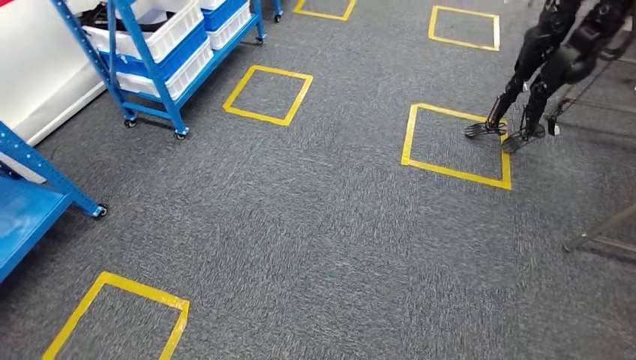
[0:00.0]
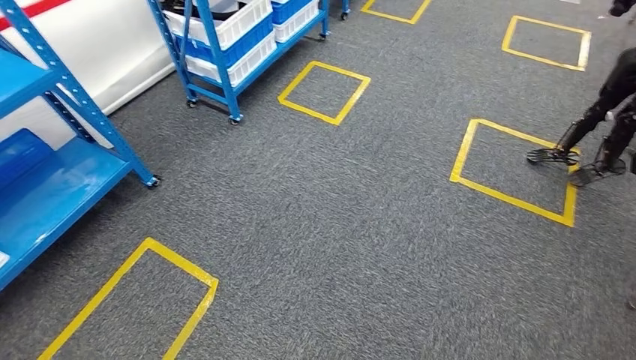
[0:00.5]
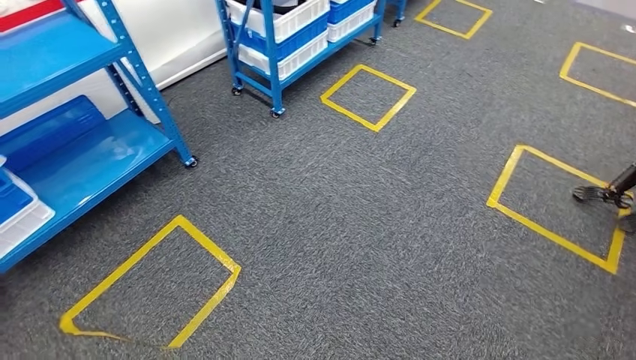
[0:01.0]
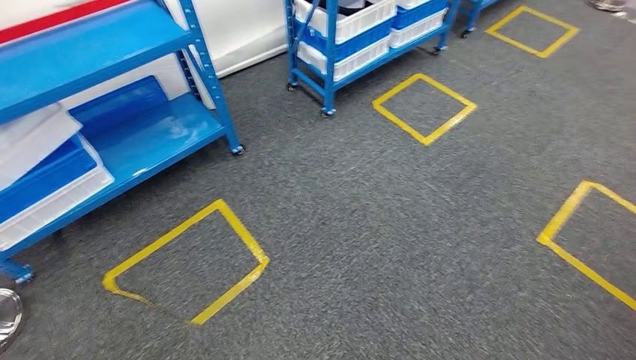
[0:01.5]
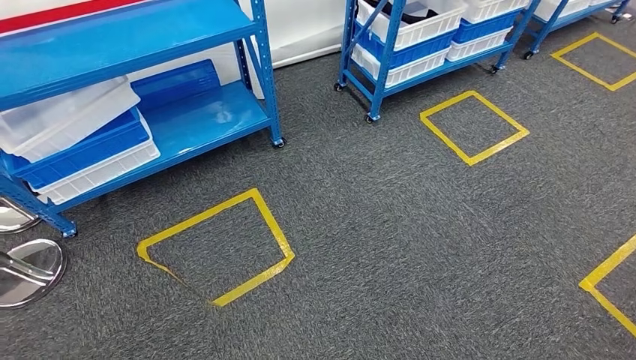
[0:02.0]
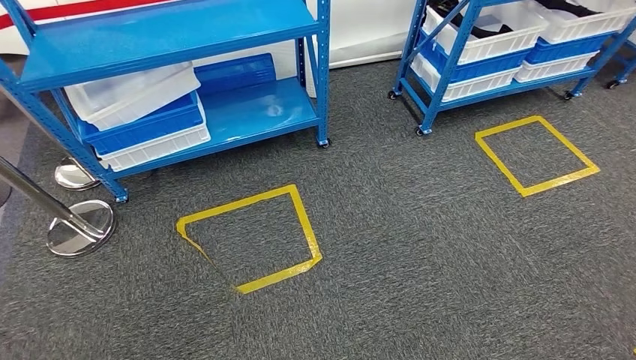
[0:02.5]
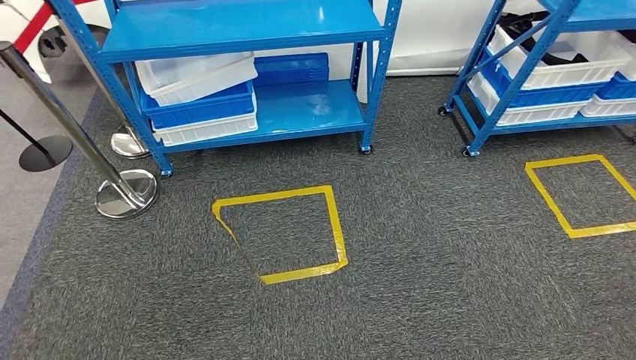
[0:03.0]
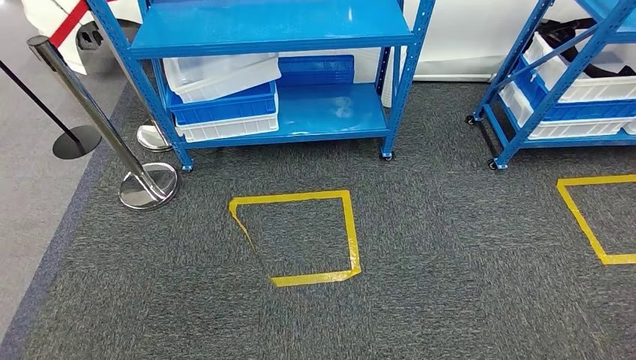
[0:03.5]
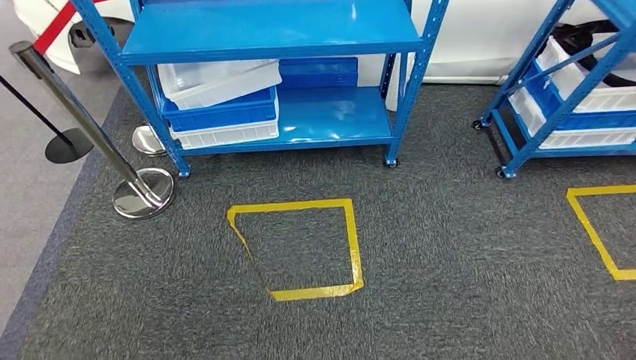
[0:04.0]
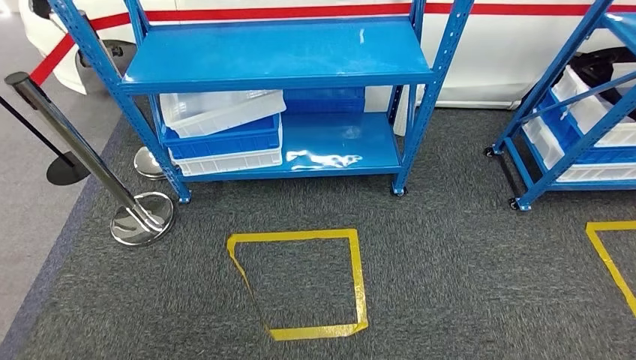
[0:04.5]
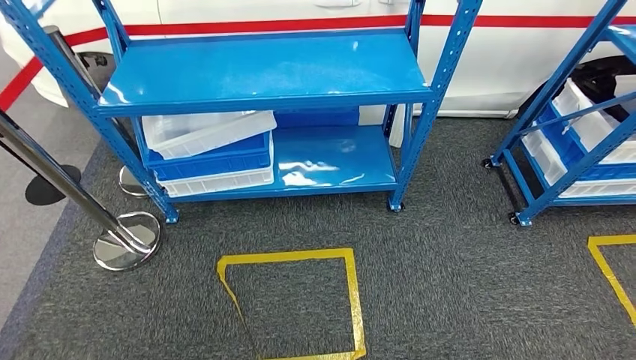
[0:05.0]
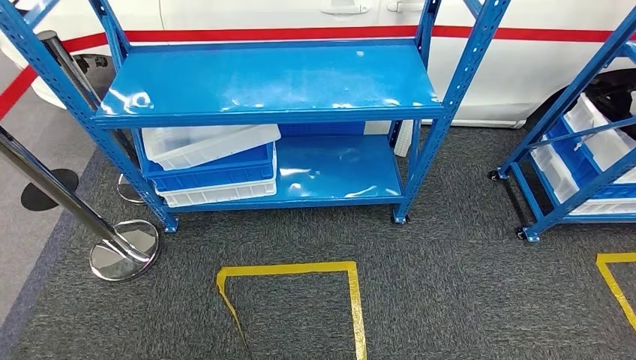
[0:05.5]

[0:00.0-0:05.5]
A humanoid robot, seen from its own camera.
Step, 0:00.0 to 0:05.5: Move to the initial position of the shelf.

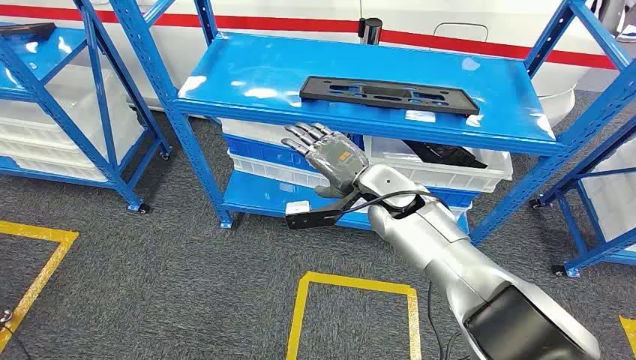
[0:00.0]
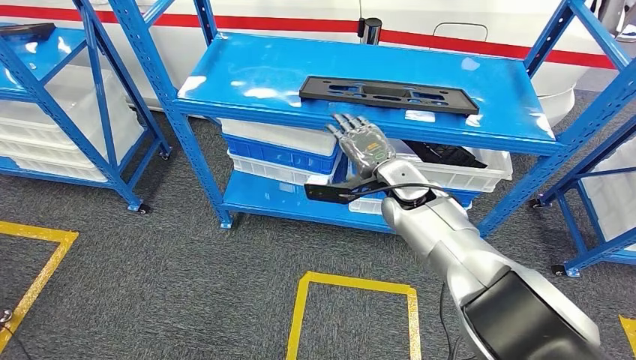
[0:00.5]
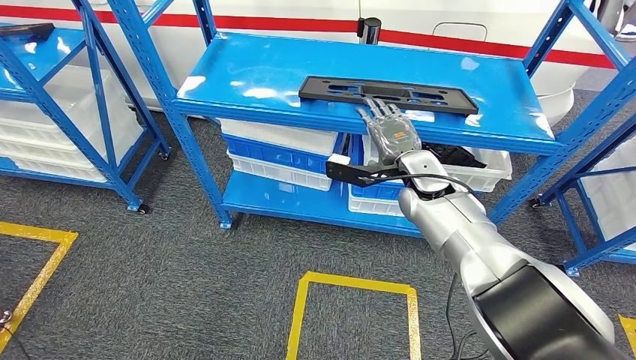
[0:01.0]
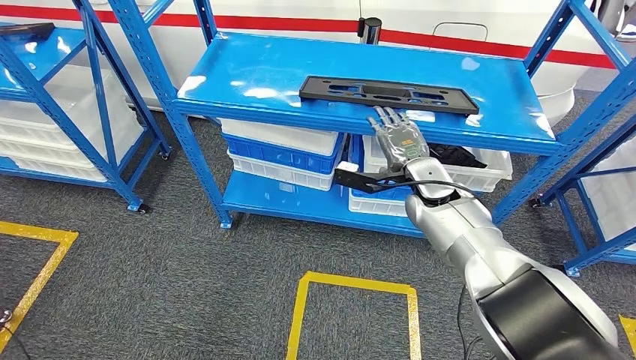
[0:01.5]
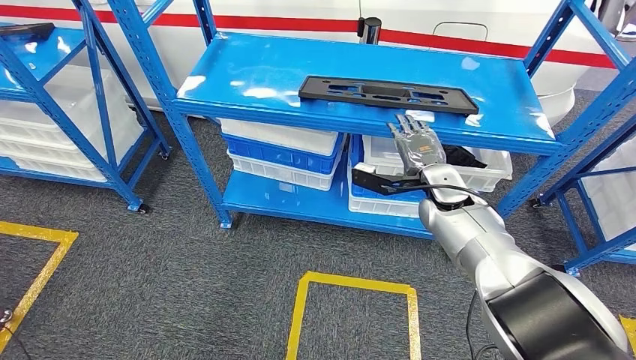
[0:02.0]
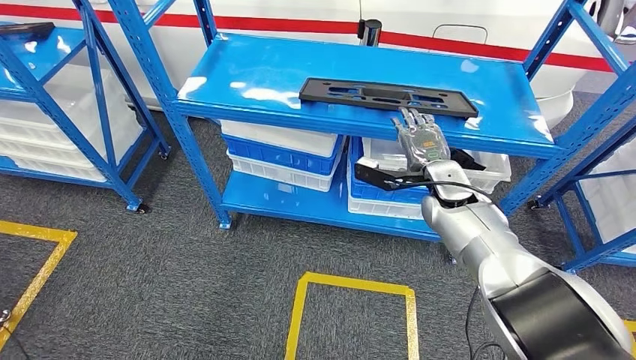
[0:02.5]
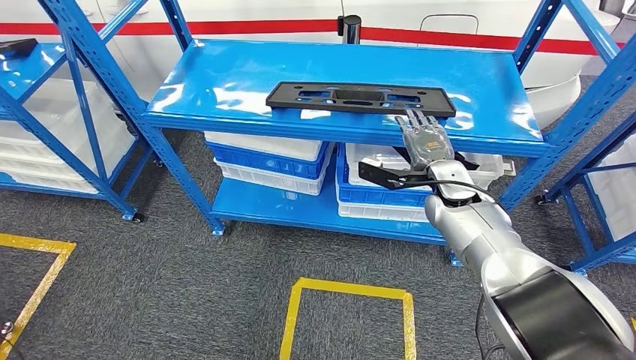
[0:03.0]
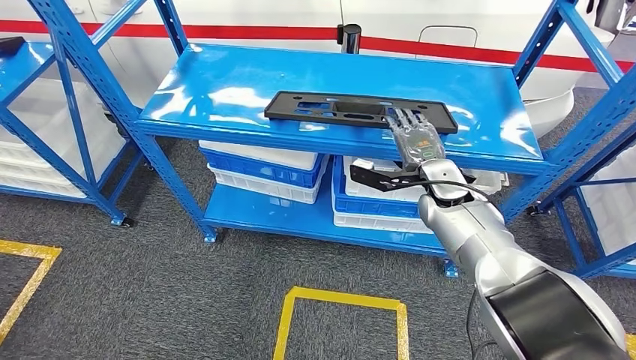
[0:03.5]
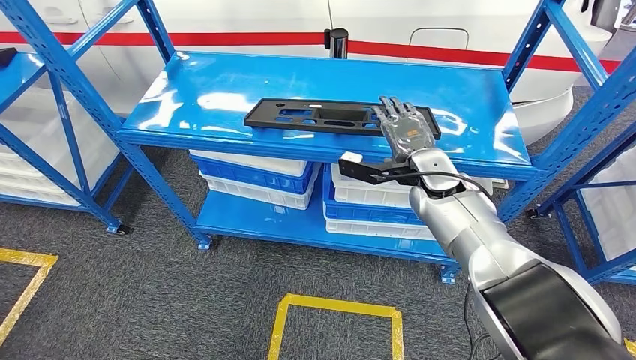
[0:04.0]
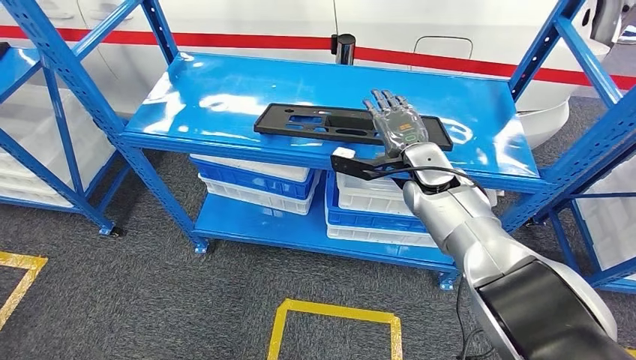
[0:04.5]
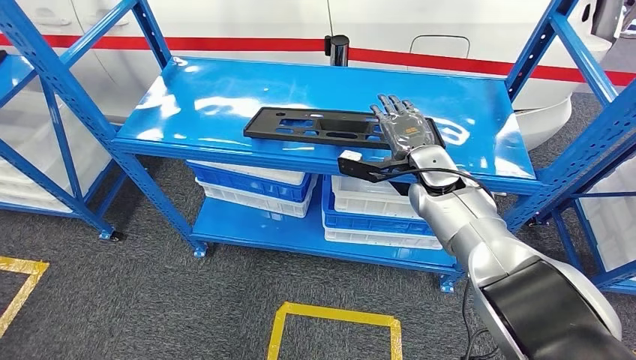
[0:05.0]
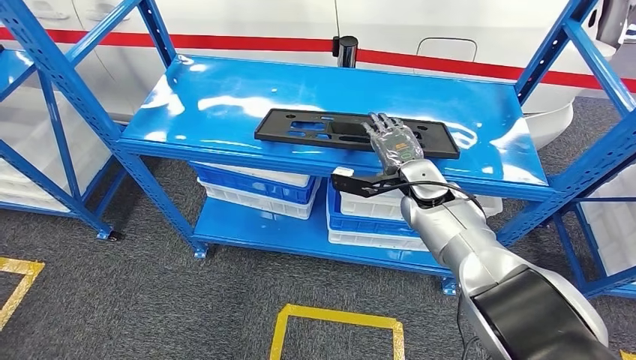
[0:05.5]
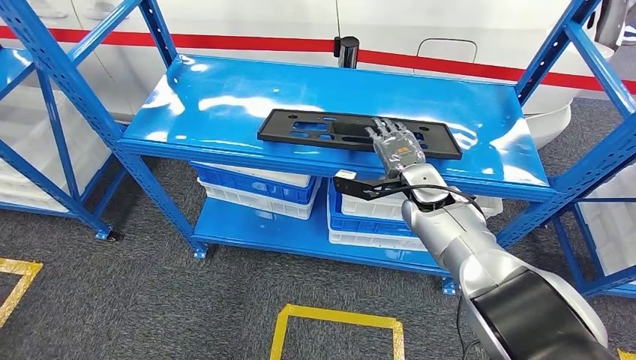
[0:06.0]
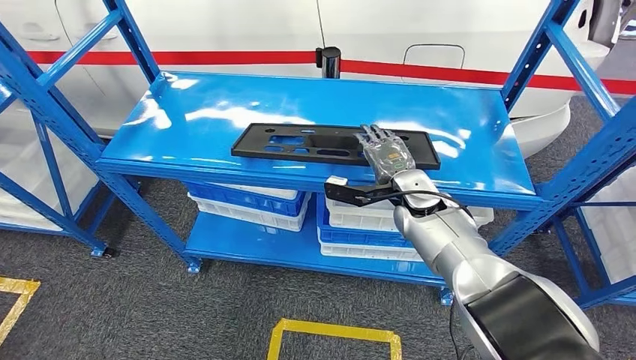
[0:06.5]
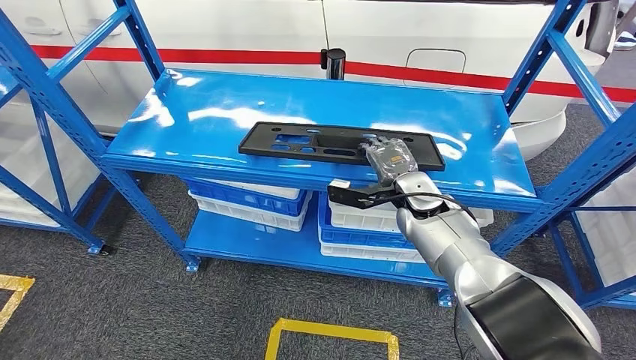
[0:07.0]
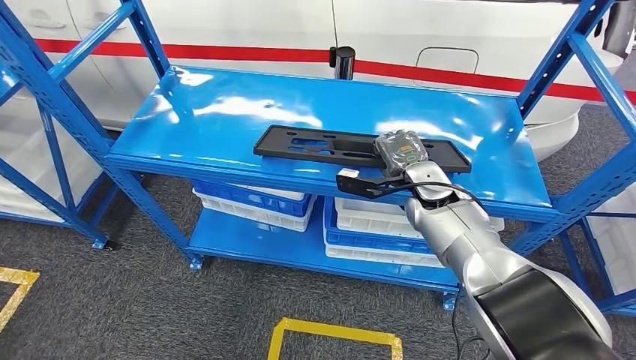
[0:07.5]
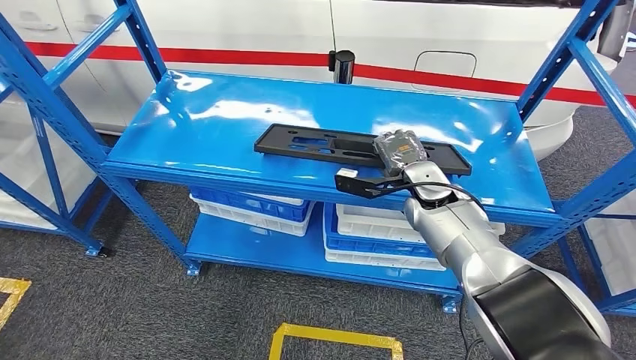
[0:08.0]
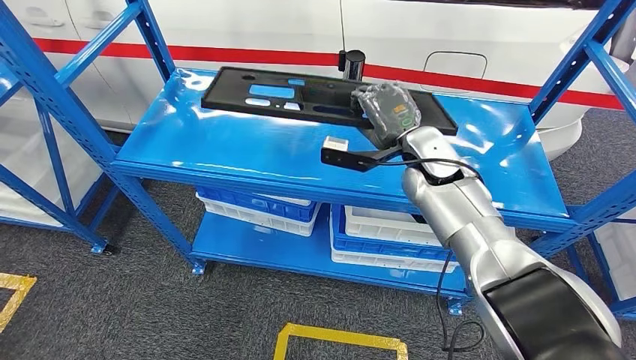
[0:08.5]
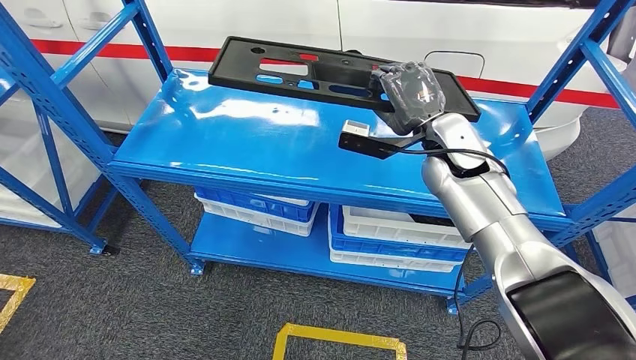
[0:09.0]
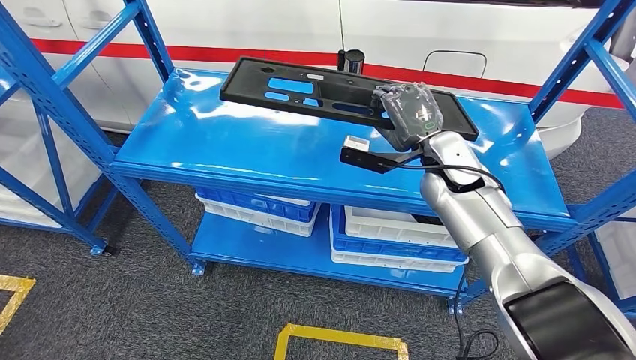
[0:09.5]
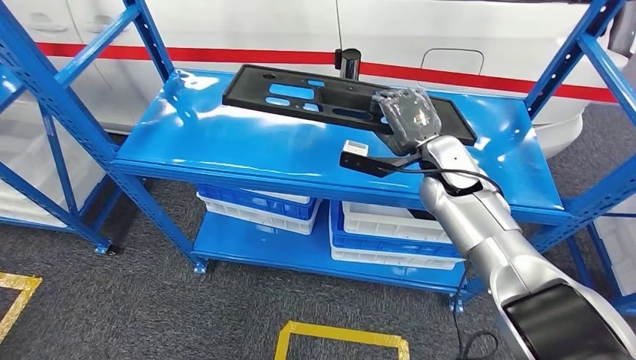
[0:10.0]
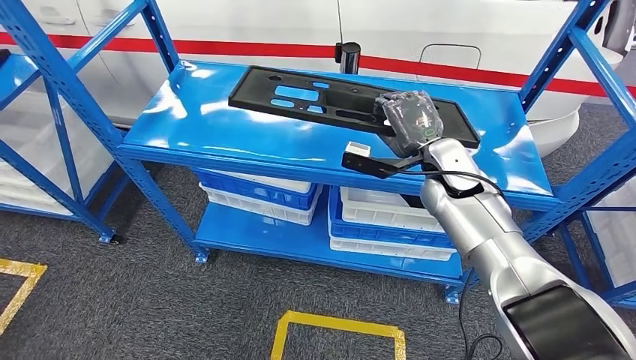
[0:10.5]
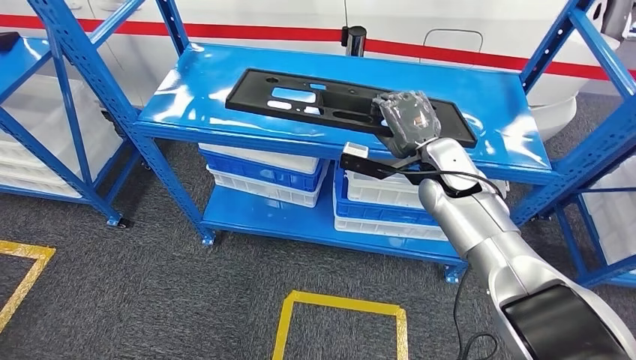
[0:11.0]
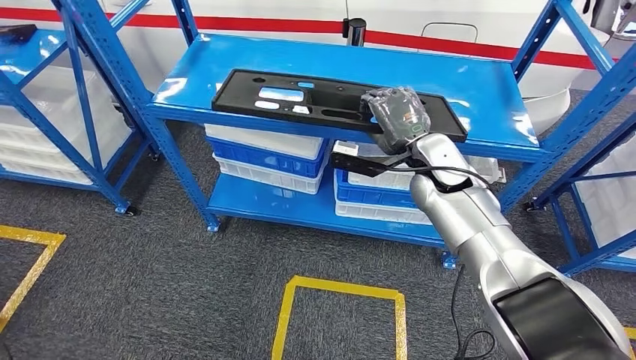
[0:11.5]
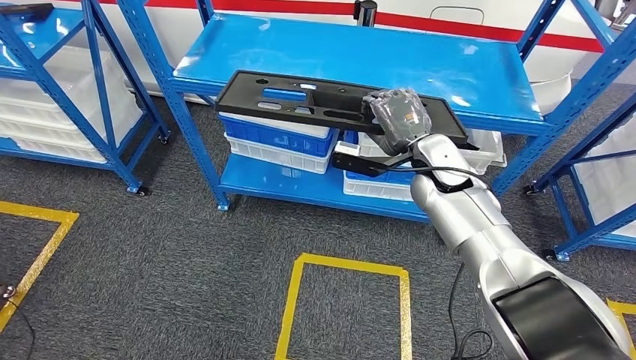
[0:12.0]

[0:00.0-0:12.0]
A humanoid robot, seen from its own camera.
Step, 0:00.0 to 0:08.5: Pick up the large material from the shelf.

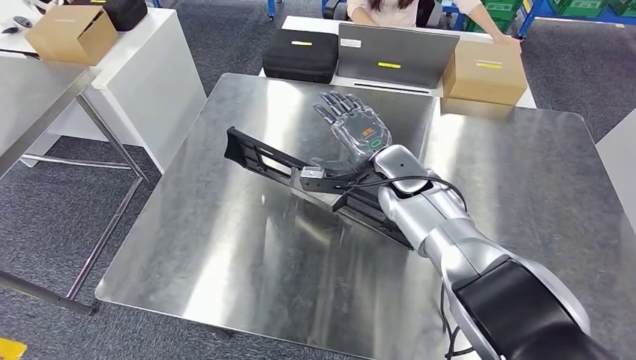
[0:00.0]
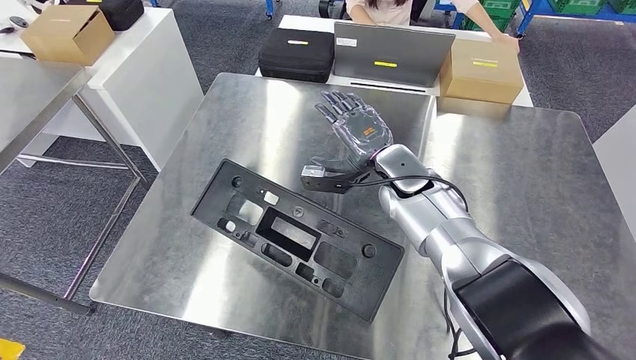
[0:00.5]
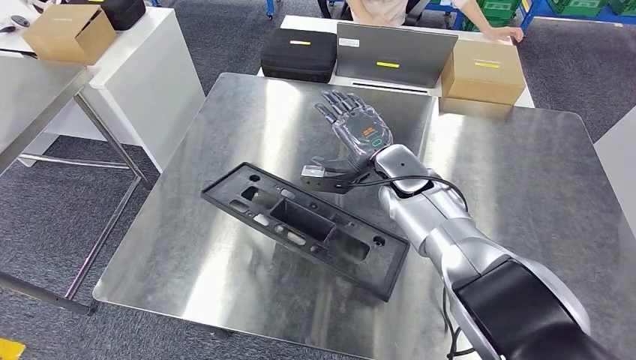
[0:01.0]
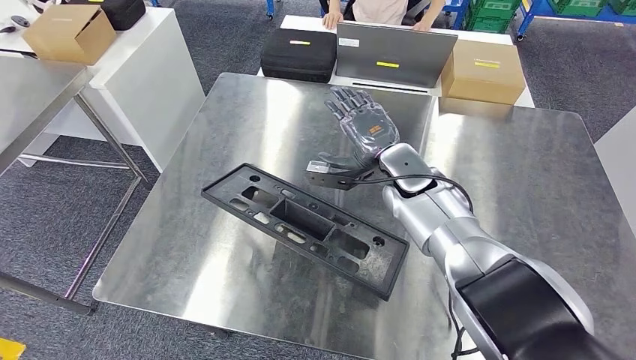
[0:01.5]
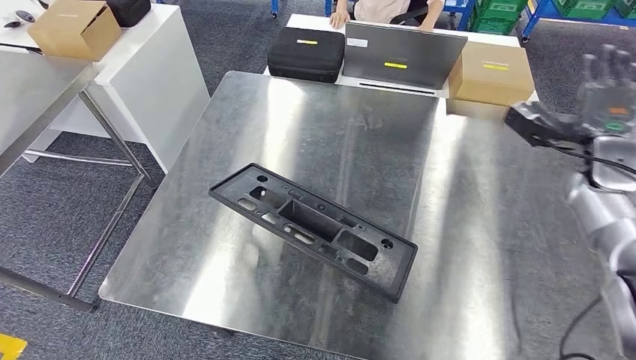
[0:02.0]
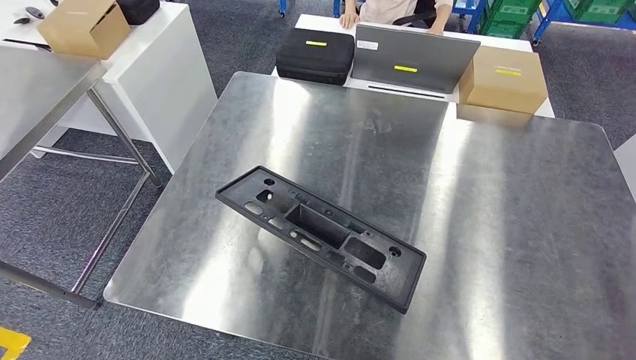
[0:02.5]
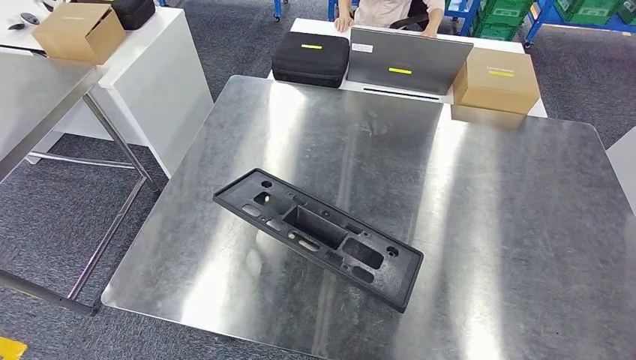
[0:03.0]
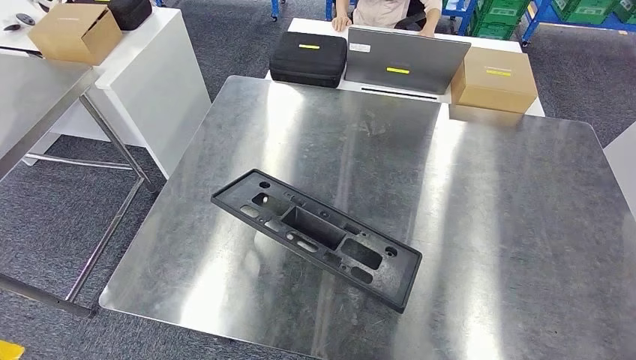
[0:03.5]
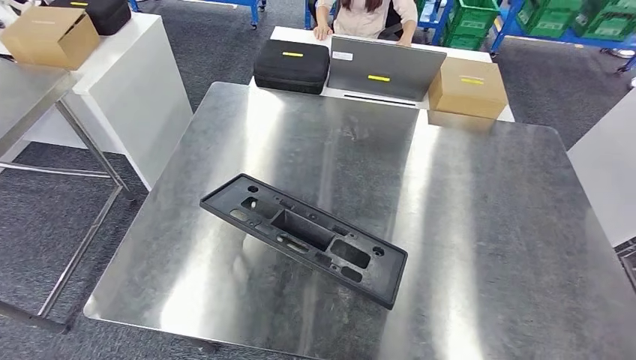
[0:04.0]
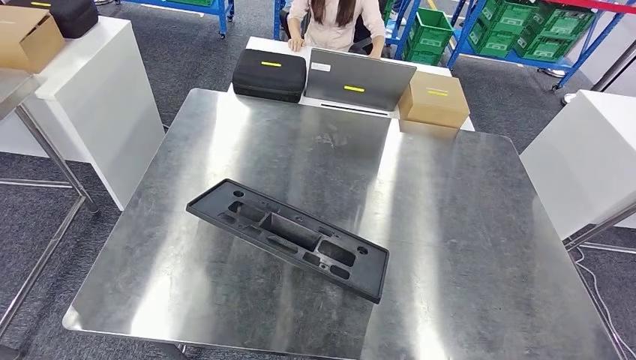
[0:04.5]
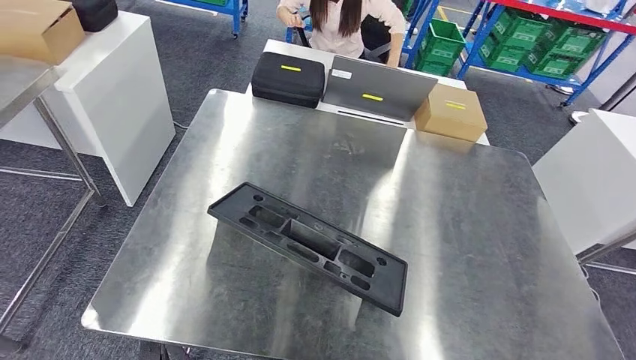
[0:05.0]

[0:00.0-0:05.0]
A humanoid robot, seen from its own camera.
Step, 0:00.0 to 0:03.0: Insert the large material into the corresponding slot on the workbench.
